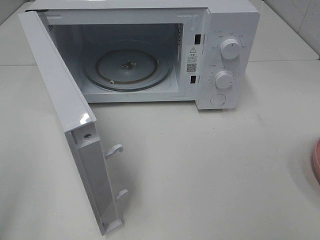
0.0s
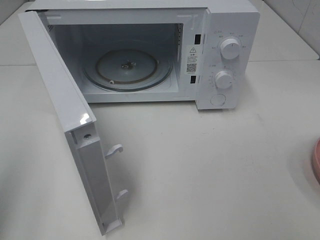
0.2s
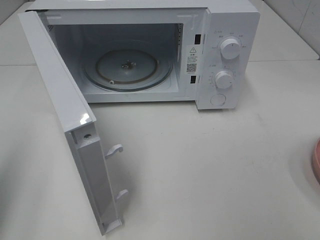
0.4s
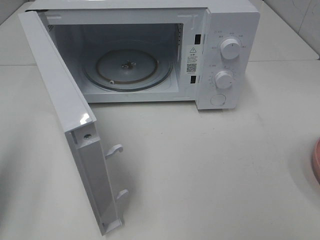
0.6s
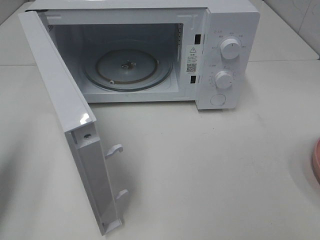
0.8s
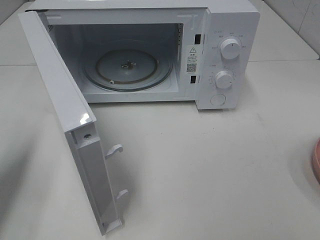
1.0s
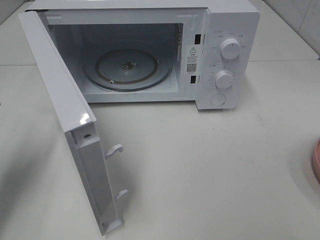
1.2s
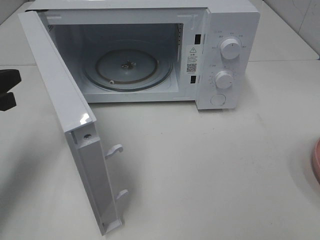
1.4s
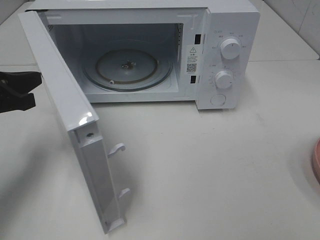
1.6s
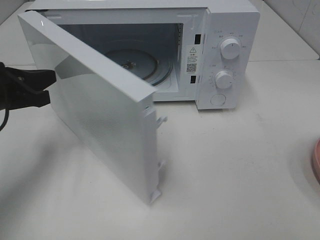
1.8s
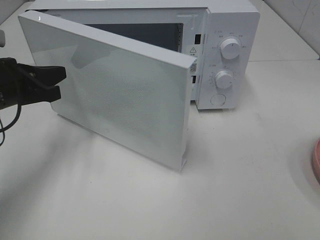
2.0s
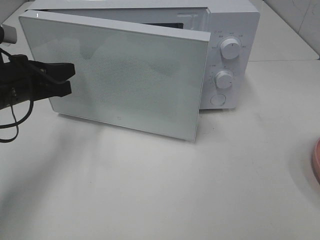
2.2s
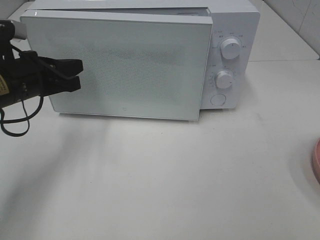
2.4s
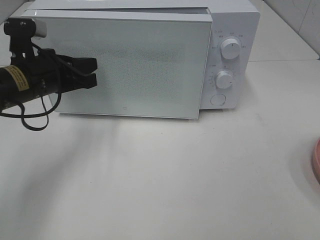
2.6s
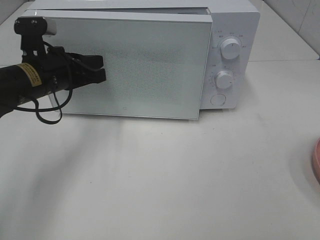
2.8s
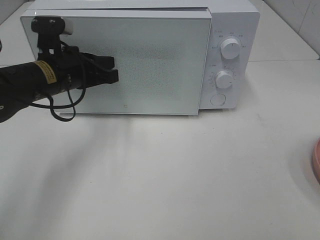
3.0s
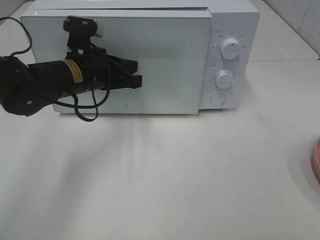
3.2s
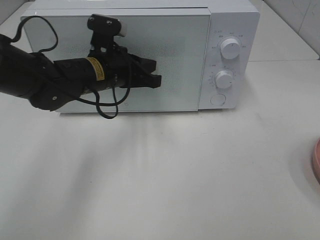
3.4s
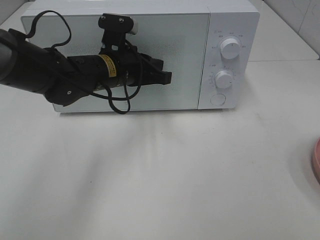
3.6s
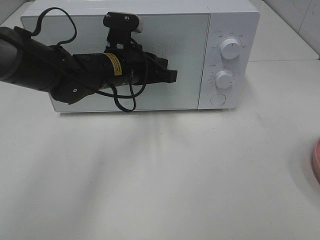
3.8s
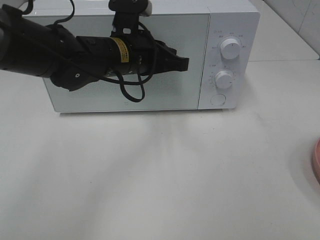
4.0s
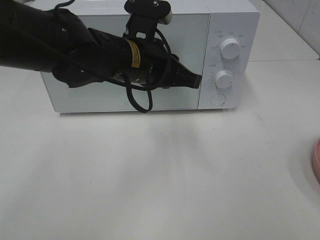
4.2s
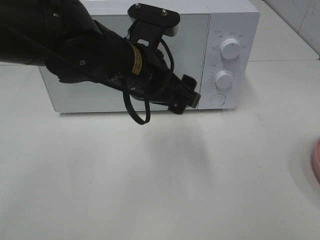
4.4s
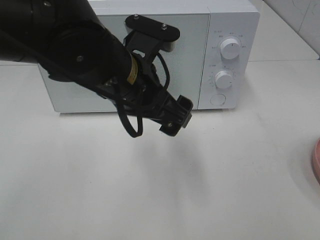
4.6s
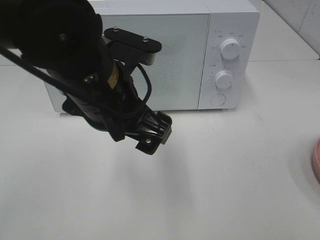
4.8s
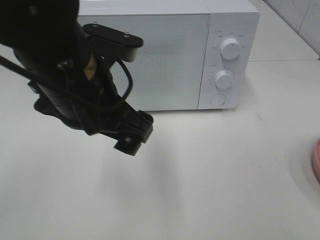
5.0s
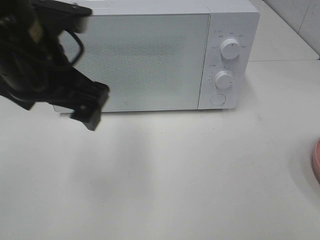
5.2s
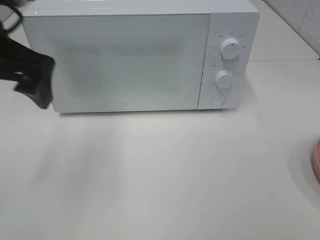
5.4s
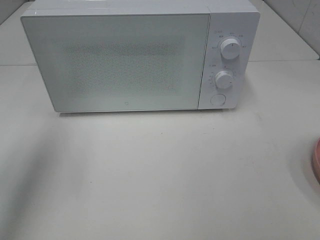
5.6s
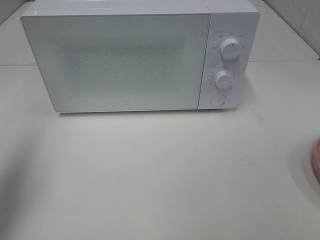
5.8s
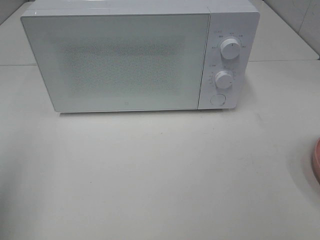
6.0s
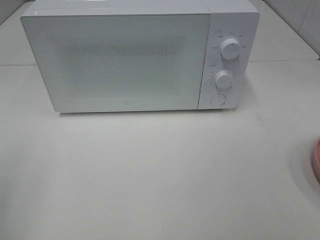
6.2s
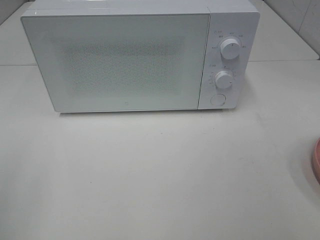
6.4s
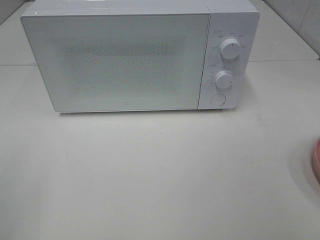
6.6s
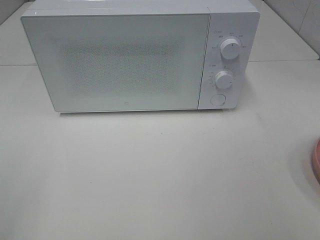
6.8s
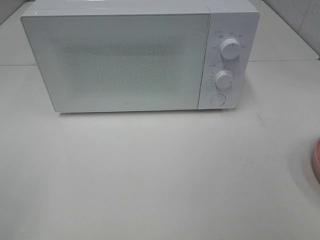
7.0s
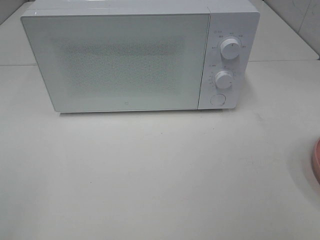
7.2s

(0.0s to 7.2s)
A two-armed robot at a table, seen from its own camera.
Task of the whole recording: Heat the burger.
Step, 0.0s - 3.8s: Left hand: close the microwave door.
0.0s - 1.4s: The left gripper shifts about 25 cm forward and downward.
1.4s - 2.8s: The left gripper goes about 15 cm to the right and forward.
2.8s - 4.4s: The left gripper shifts some 15 cm to the right and backward, and opens.
4.4s - 5.8s: The left gripper travels to the left by some 30 cm.
5.8s - 7.2s: The left gripper heads backward, covering approximately 20 cm.

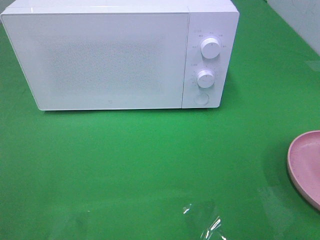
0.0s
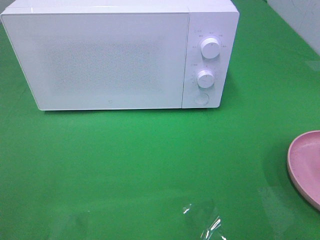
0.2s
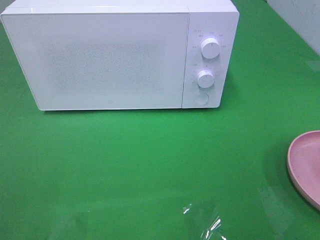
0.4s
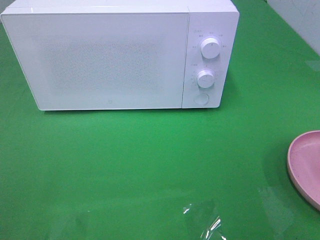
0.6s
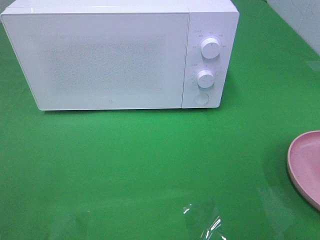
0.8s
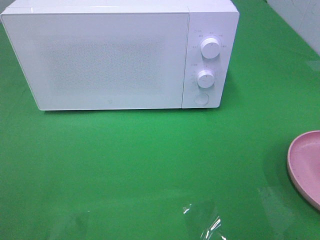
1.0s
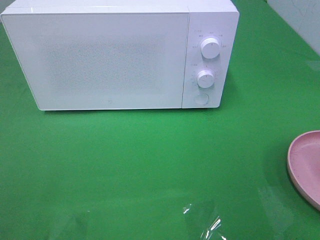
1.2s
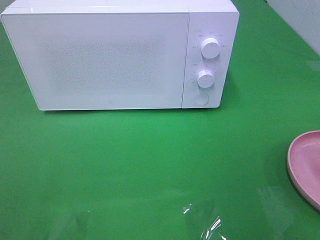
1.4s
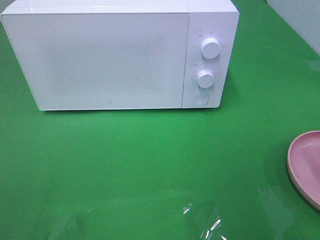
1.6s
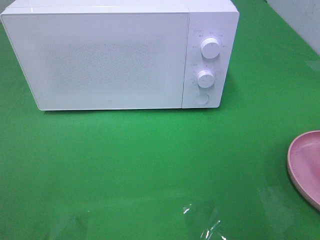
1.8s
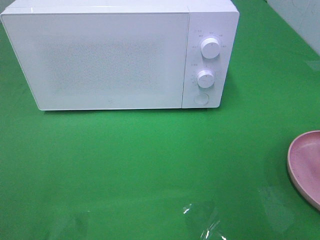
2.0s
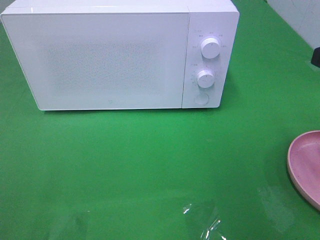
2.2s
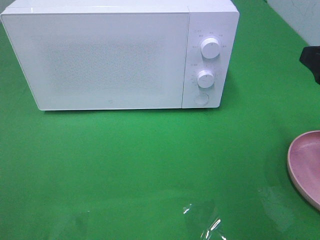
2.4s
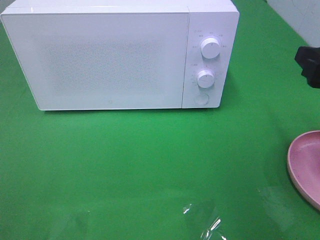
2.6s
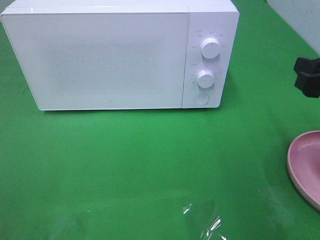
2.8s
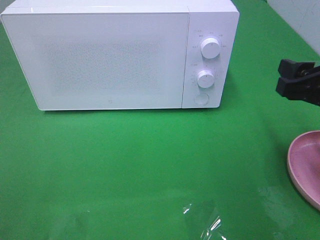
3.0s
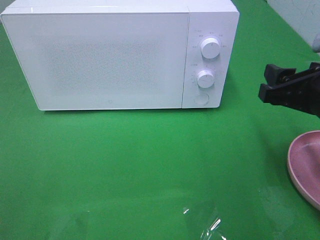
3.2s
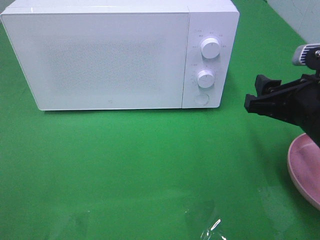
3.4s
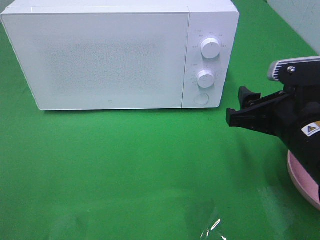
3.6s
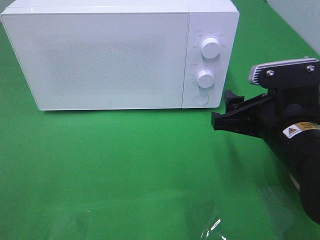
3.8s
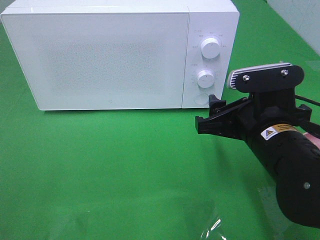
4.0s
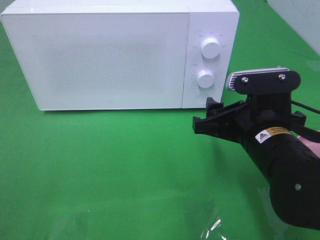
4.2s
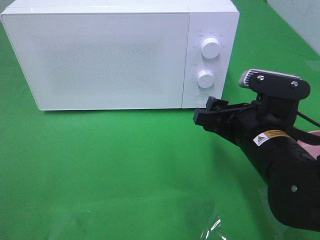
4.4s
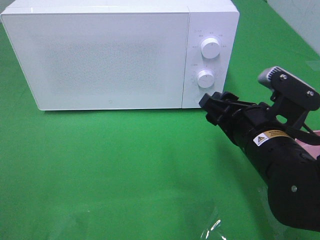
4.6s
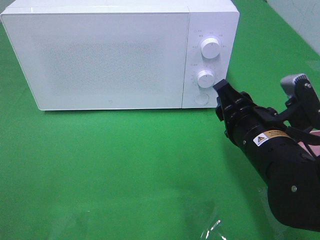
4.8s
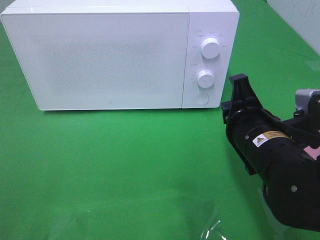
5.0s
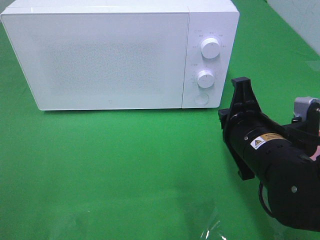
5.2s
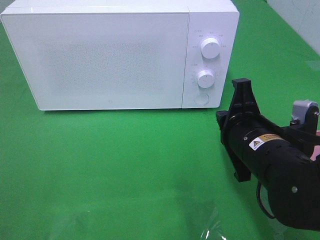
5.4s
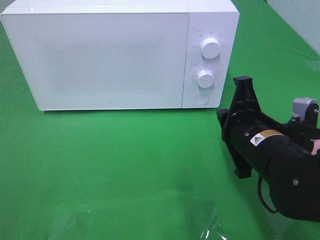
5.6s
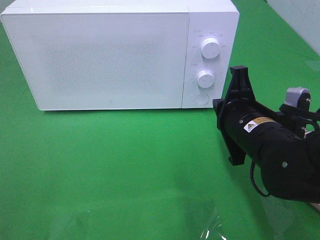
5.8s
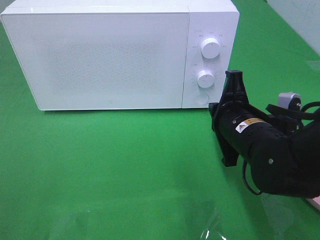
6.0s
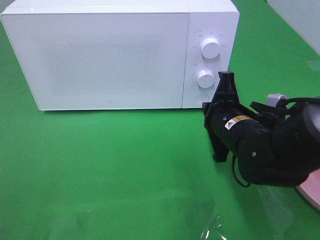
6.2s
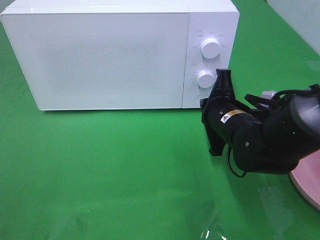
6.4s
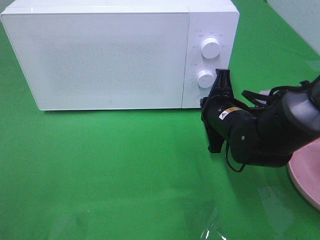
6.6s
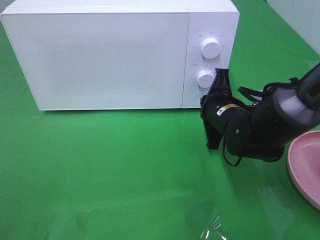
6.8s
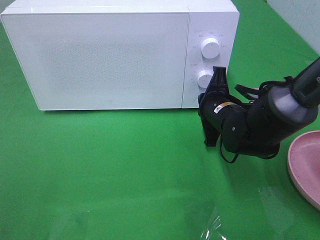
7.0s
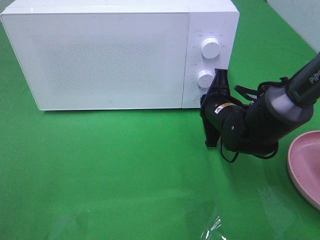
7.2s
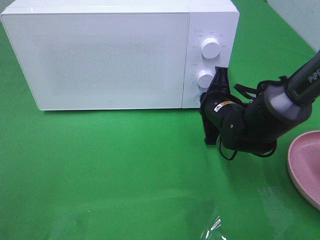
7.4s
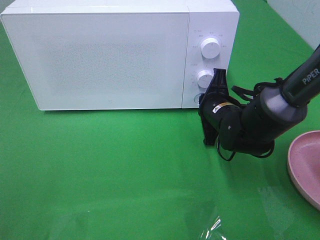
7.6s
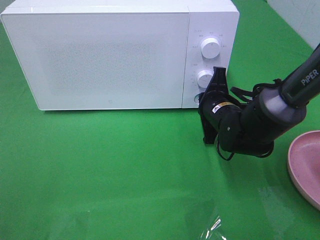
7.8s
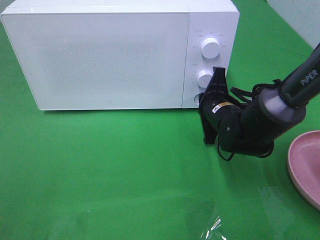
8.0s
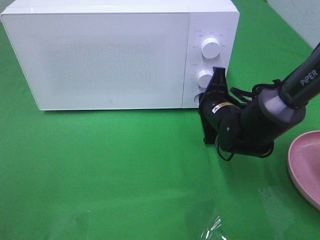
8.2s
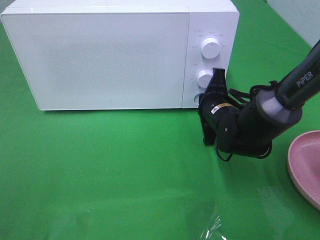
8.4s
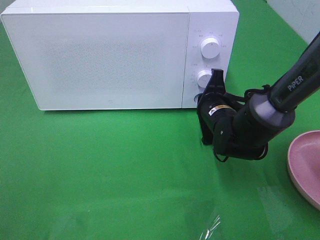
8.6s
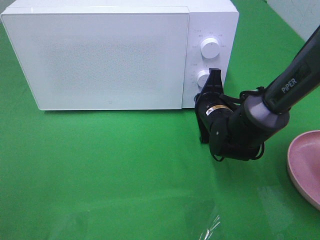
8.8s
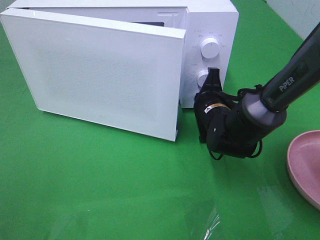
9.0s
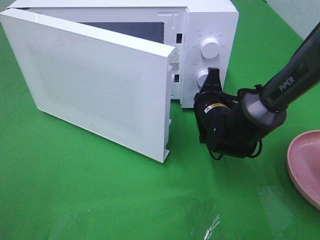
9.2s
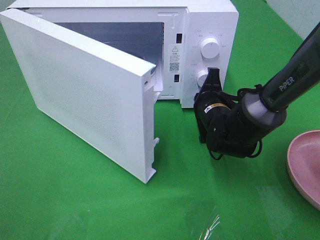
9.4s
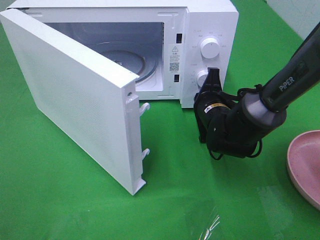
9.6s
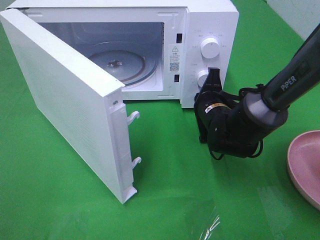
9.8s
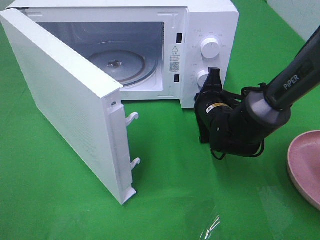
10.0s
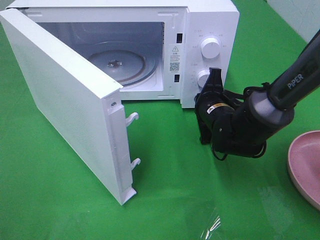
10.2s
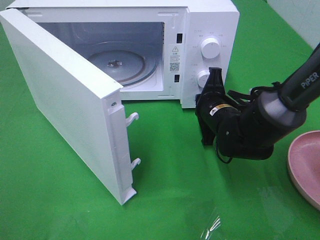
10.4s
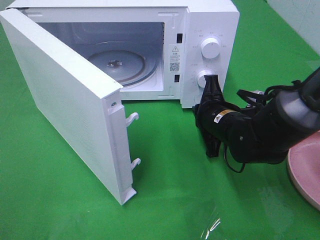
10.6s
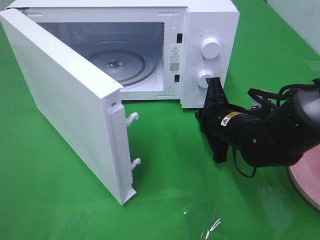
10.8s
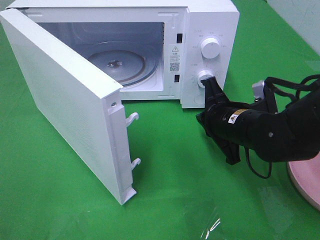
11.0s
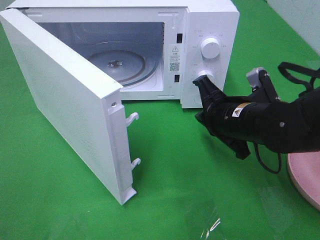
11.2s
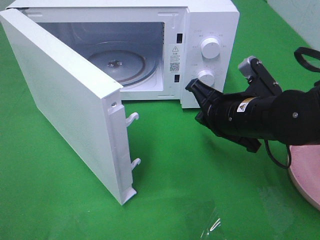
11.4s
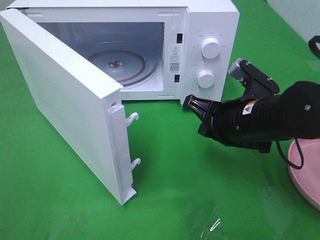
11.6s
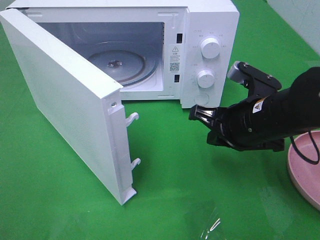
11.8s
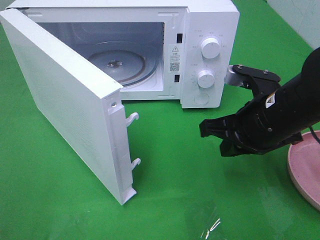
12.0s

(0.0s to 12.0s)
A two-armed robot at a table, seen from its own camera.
Task of the whole recording: Heat the burger.
Step, 0.0s - 10.6s: Right hand: press the switch.
1.6s - 3.0s: The right gripper shifts some 15 cm downward and forward.
3.0s - 4.4s: The right gripper heads to the left and downward, covering some 15 cm.
4.4s - 6.0s: The right gripper closes its fingers.
6.0s - 7.6s: The right gripper shifts approximately 10 cm forward.
7.6s - 9.0s: The grippers make only small movements.
10.4s - 12.0s: The right gripper shifts some 15 cm upward and backward.

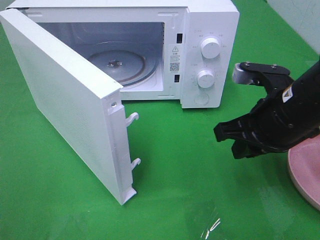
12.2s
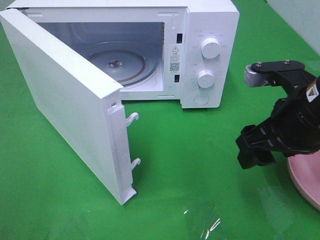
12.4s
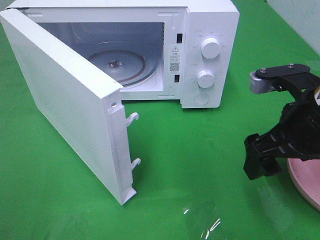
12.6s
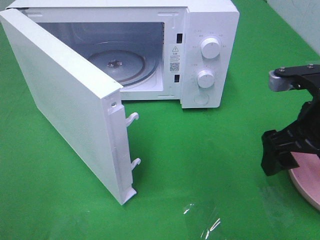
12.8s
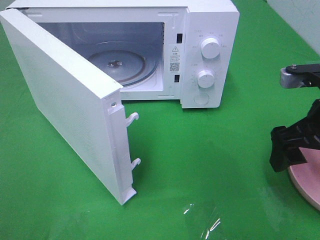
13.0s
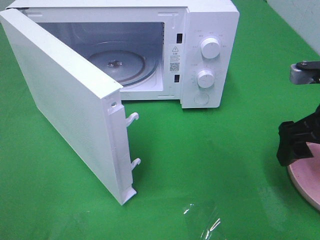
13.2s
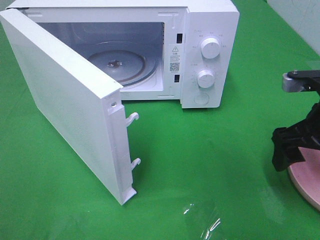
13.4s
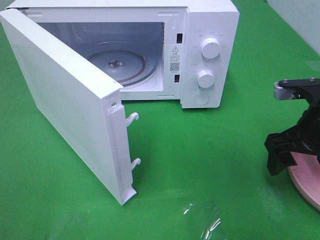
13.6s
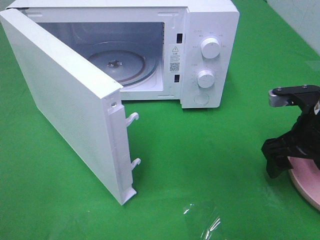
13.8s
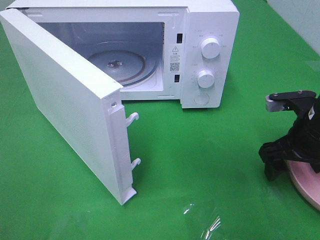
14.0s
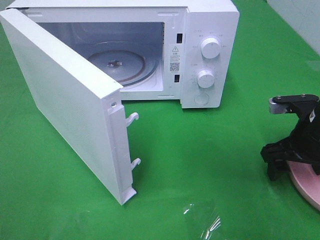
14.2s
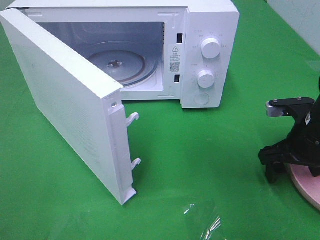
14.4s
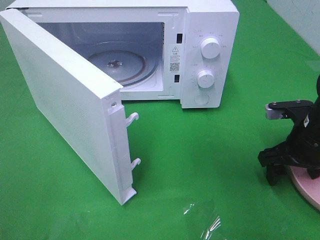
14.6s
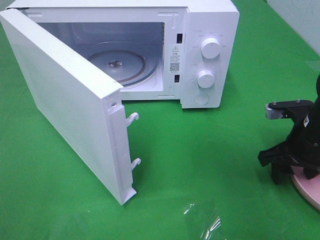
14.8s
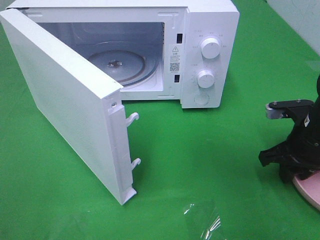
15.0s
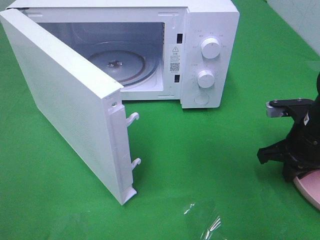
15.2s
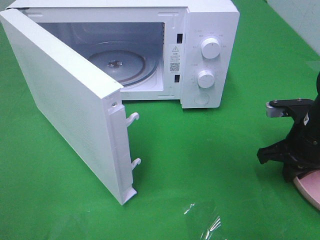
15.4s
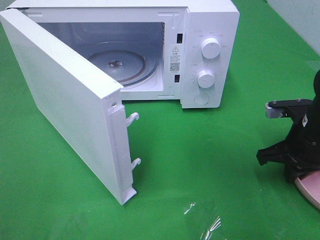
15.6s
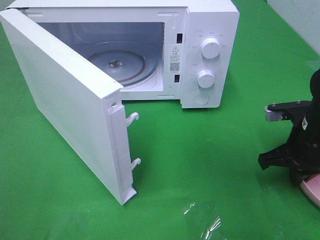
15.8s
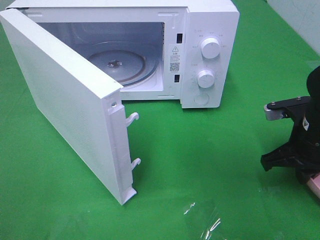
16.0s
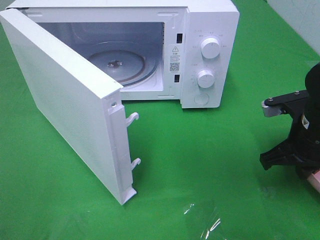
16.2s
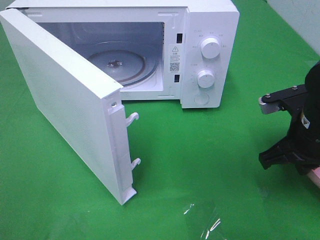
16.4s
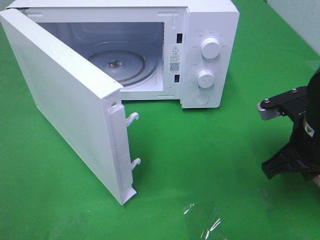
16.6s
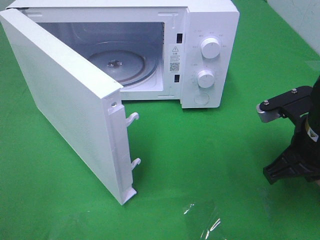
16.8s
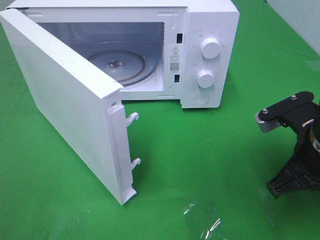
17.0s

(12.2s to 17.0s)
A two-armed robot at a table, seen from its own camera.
Task of the whole recording: Heat the burger.
Step, 12.2s - 16.0s: Right hand: grab the plate with the hamburger.
12.2s - 13.8s: The right gripper goes some 5 cm to the right, and opens up.
13.8s - 15.4s: The right gripper closes.
15.4s - 17.0s: The right gripper travels backward, upward and to the left by approximately 10 cm.
